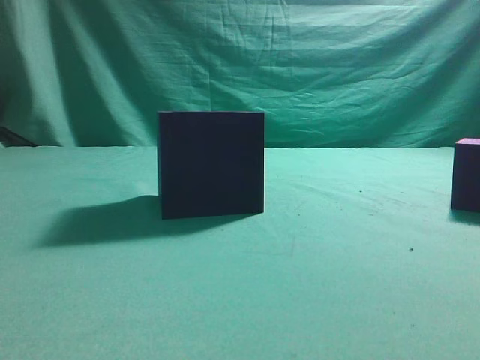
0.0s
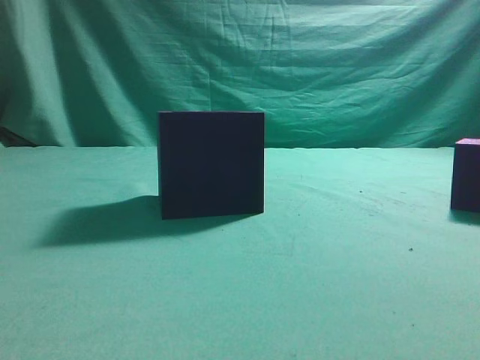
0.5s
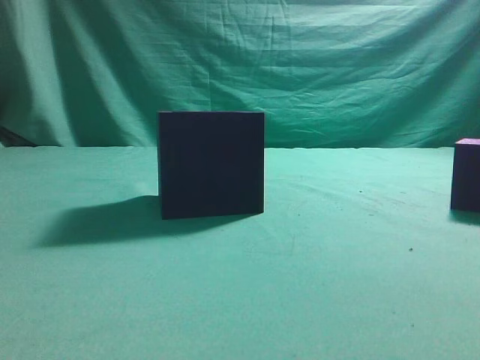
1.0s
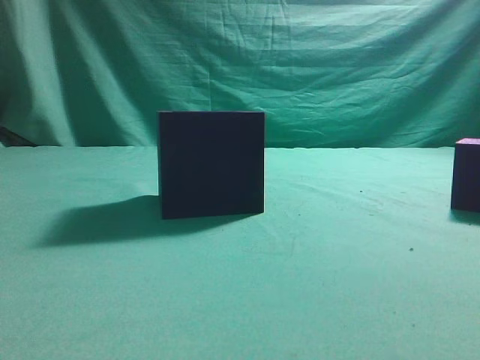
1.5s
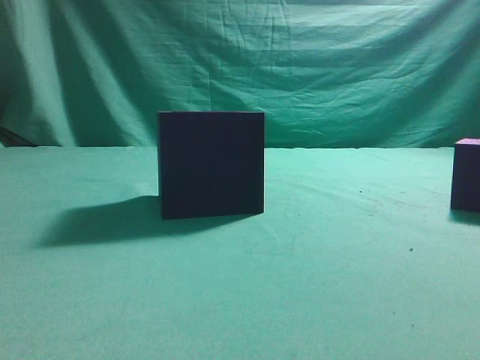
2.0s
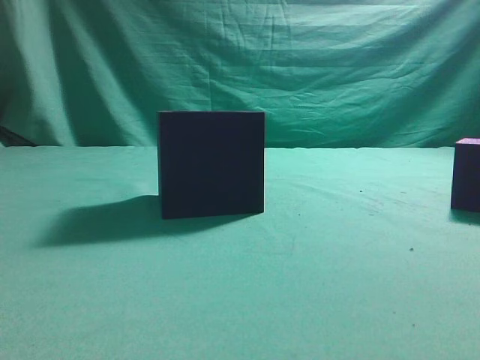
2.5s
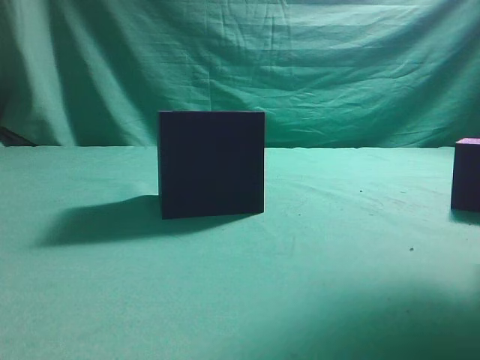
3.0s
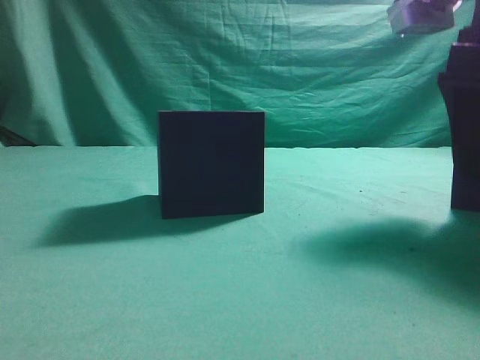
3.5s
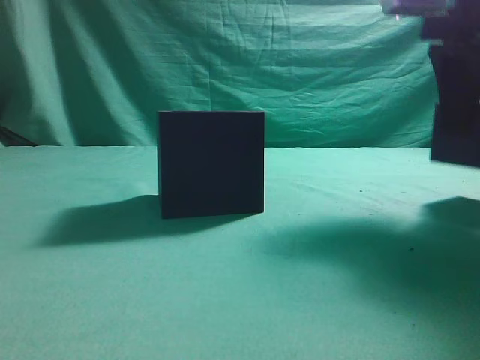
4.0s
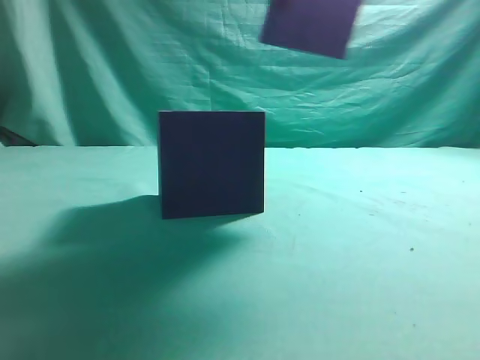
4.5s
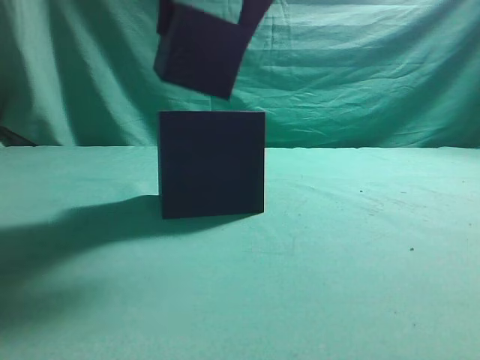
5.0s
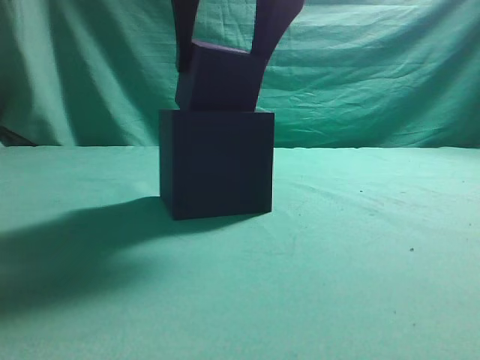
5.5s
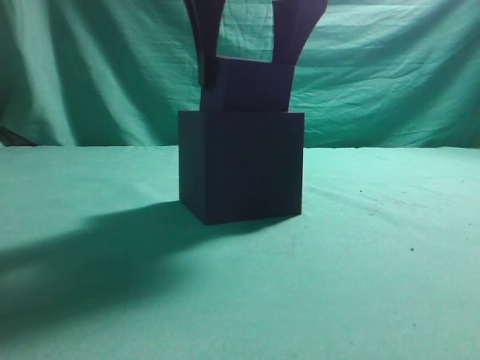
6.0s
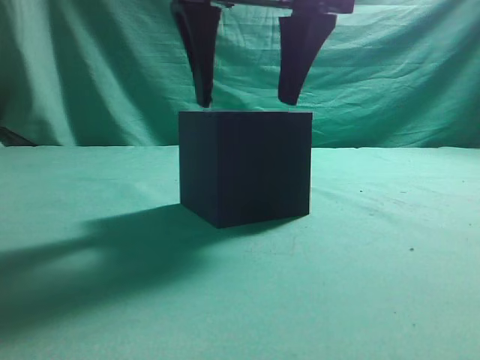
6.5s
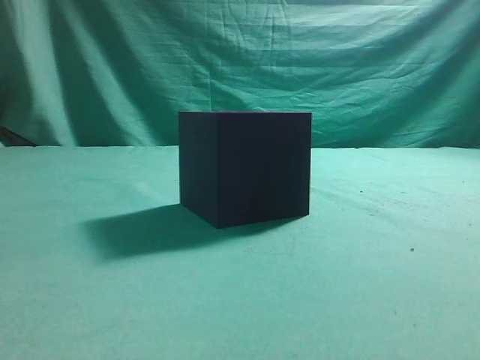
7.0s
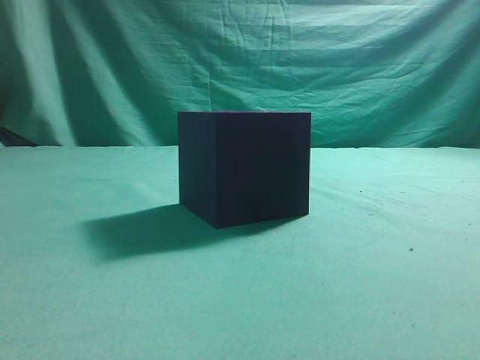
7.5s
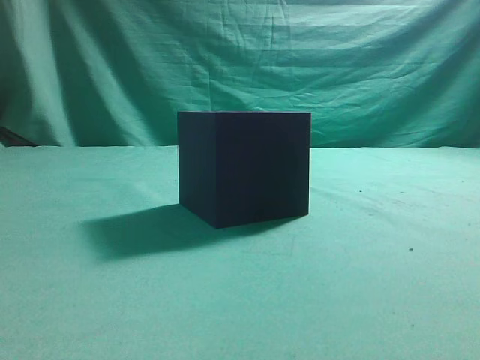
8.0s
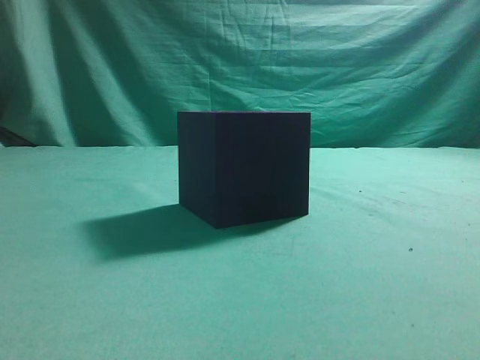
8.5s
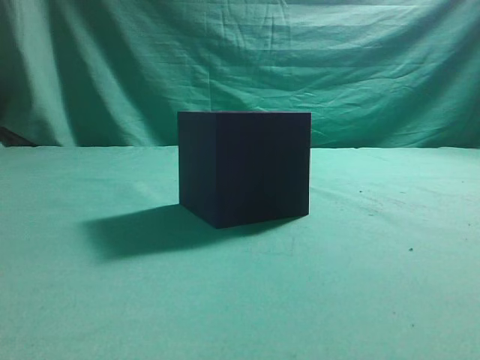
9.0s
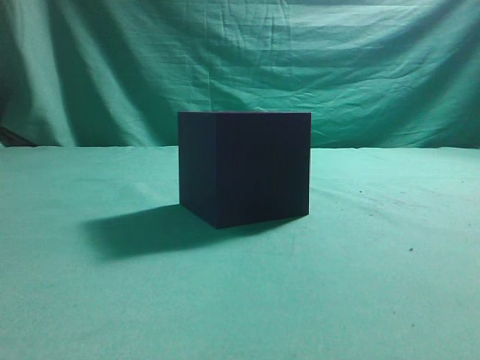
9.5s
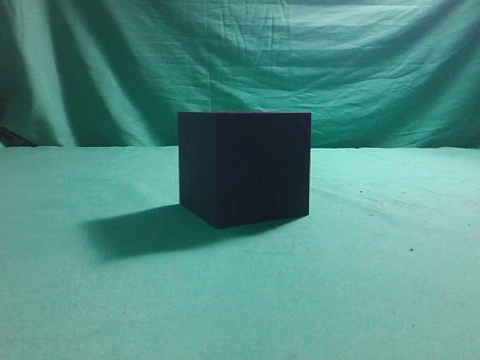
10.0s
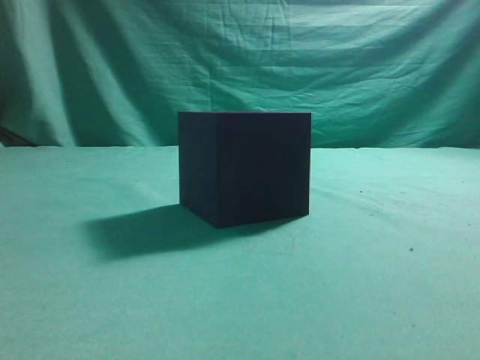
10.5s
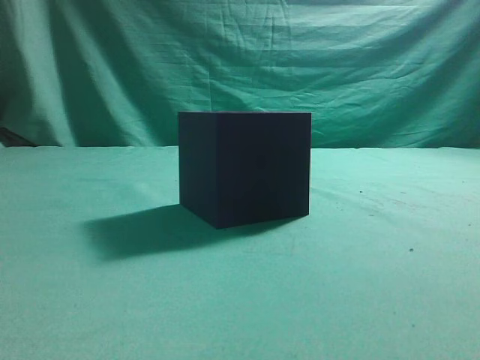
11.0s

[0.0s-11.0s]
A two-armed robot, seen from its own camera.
Task of the whole recording: pick up the cube block and place it into the cube groove.
Step, 0.0s to 3.5s: Grasp the cube.
Step, 4.5s to 6.5s: Place cube into the cube-shaped recess.
2.0s to 3.5s: The right gripper heads forward, covering roughly 20 cm, and opens its fingers.
3.5s to 5.5s: The right gripper heads to the left, covering roughly 20 cm.
5.5s to 7.5s: The right gripper heads upward, to the right and backward, covering roughly 25 cm, and closes.
